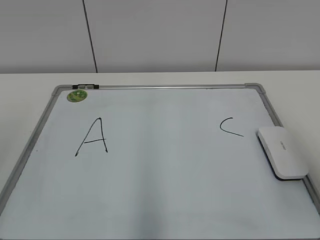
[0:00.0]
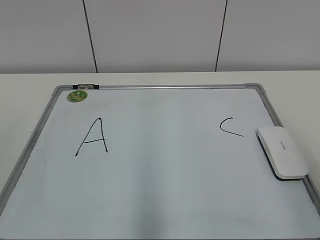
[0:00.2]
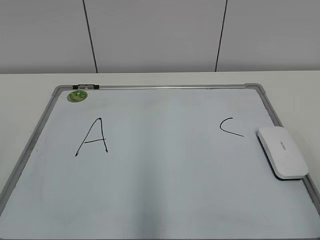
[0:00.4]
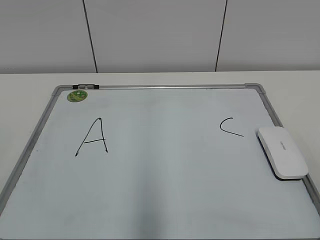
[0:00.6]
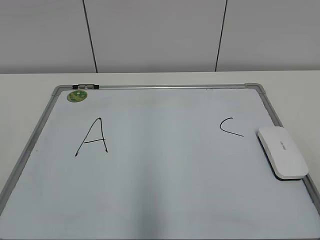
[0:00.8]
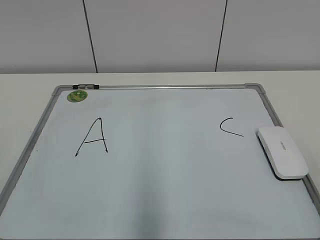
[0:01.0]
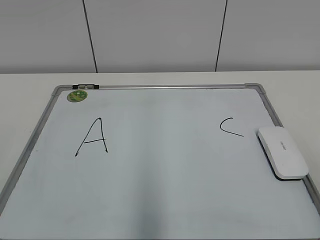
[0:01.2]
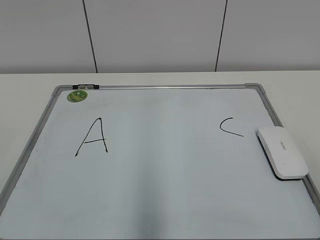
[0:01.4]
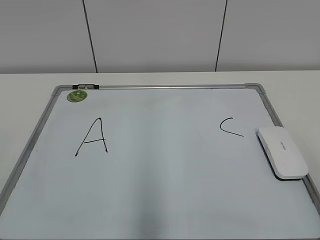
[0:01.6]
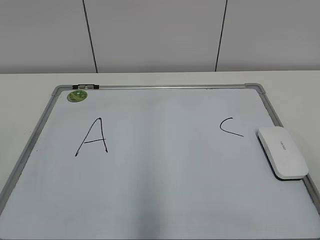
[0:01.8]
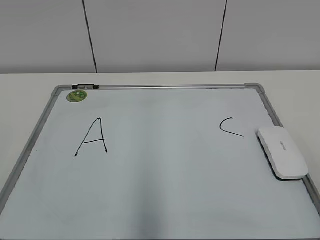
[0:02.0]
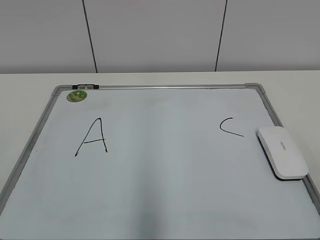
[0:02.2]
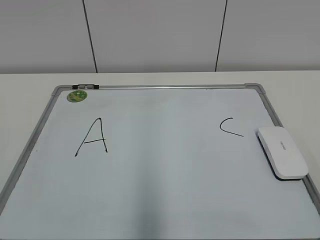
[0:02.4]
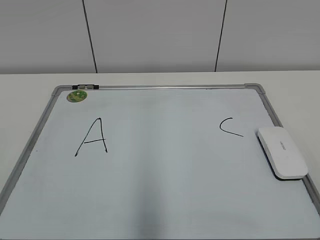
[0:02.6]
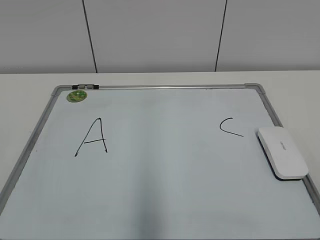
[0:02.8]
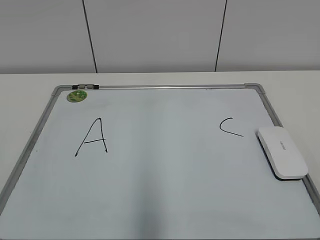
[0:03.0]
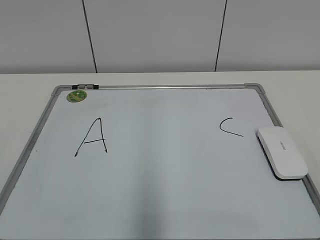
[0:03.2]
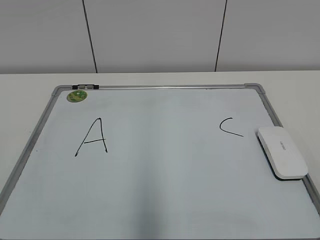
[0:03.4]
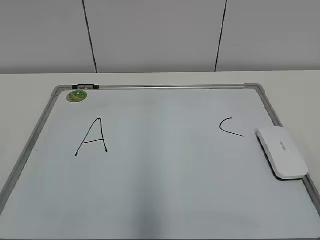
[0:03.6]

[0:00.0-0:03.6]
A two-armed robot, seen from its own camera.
Task of the whole recording: pick up the eraser on the blackboard and erase the letter "B".
0:00.0 to 0:01.8: The right gripper is displaced backward by some 15 cm.
